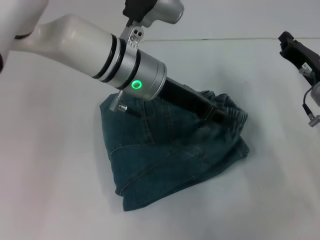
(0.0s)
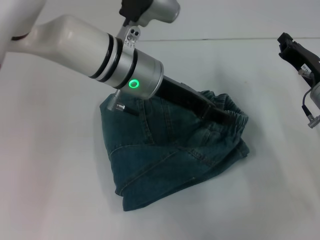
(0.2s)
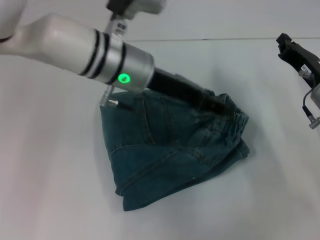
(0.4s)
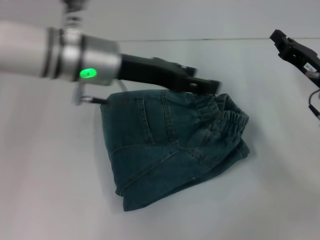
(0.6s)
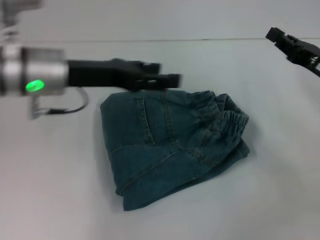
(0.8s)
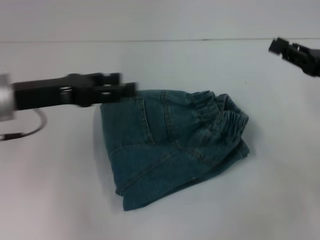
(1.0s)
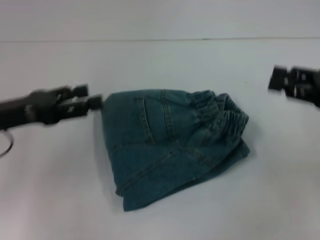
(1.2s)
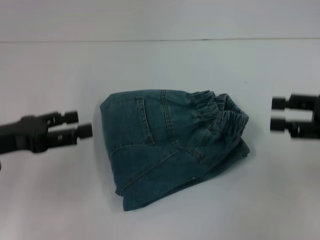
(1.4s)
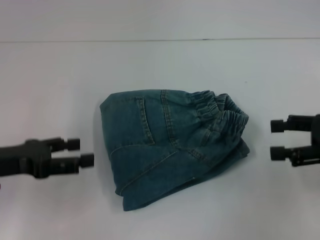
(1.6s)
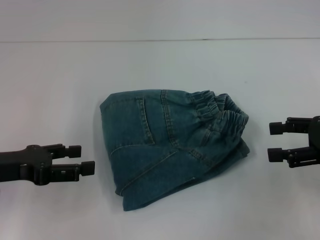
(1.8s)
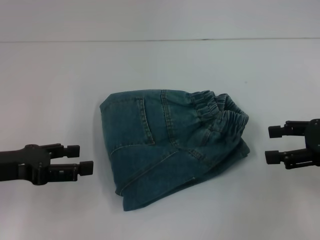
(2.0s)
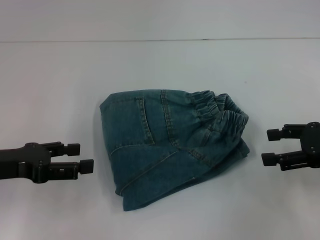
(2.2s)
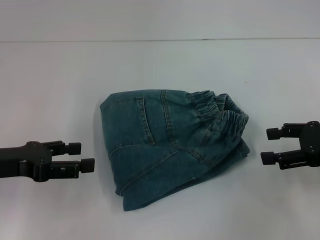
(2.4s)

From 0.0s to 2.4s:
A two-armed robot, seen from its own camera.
From 0.0s to 1.2s: The left gripper is displaced to the left by about 20 cm, and opens. Meanwhile the right gripper is displaced upward, to the right and backward by some 10 cm, and opens up.
From 1.2s to 2.4s: The right gripper opens up.

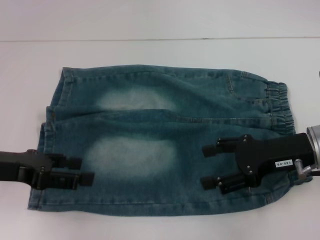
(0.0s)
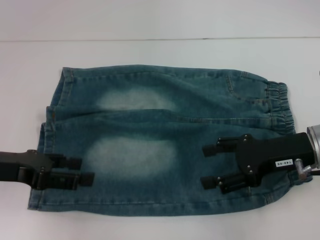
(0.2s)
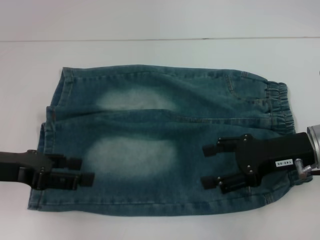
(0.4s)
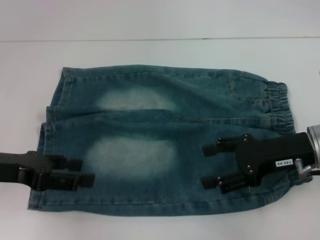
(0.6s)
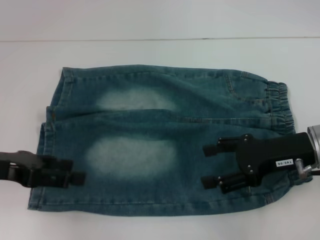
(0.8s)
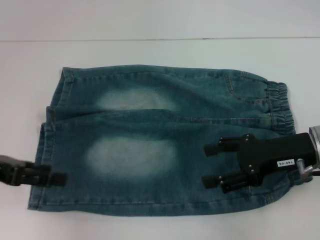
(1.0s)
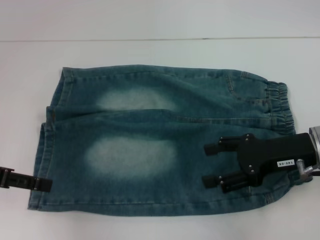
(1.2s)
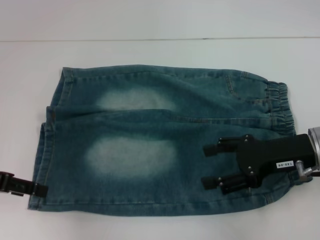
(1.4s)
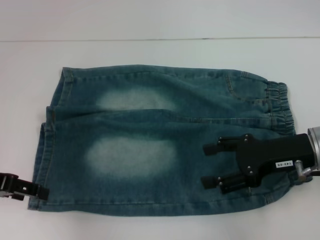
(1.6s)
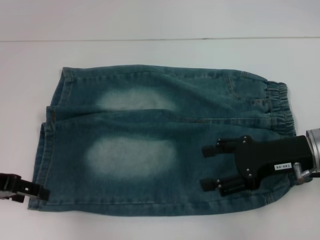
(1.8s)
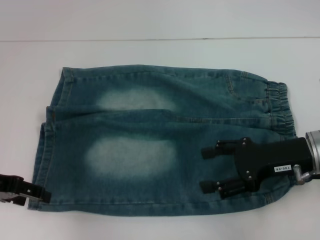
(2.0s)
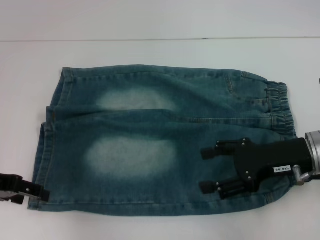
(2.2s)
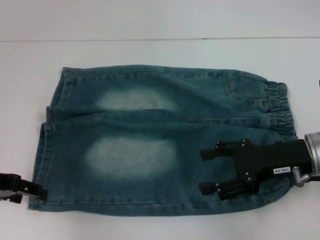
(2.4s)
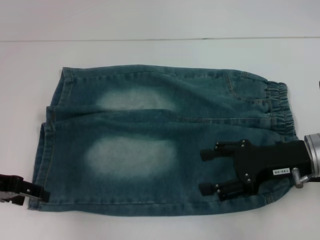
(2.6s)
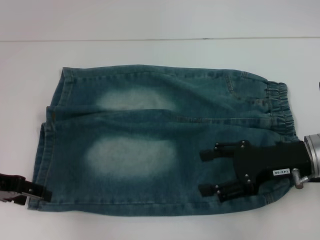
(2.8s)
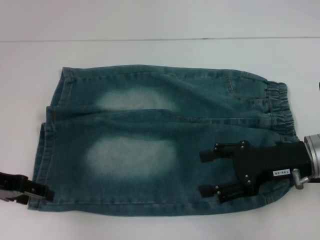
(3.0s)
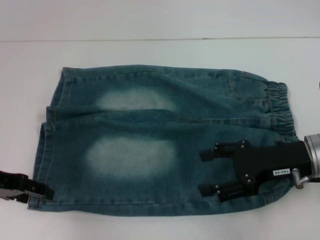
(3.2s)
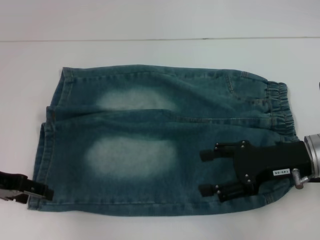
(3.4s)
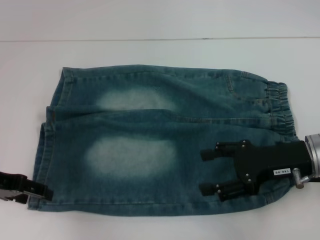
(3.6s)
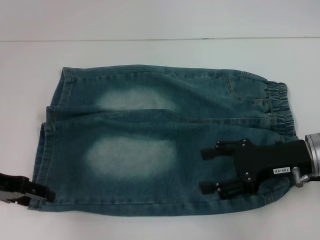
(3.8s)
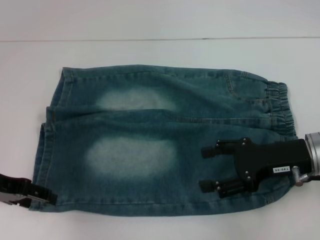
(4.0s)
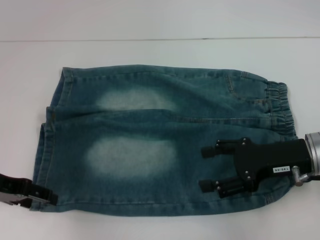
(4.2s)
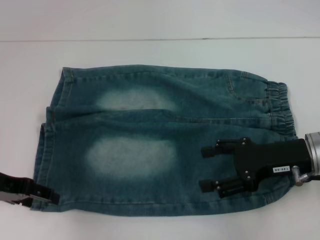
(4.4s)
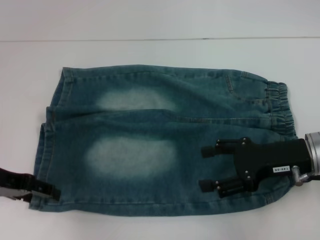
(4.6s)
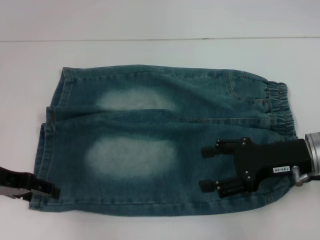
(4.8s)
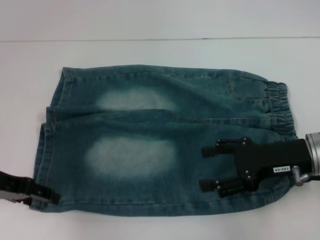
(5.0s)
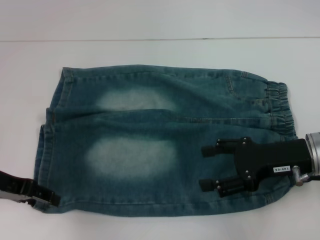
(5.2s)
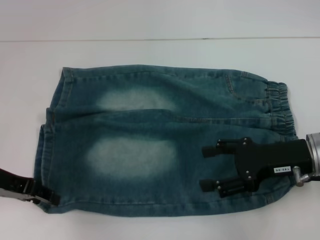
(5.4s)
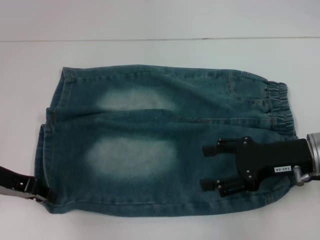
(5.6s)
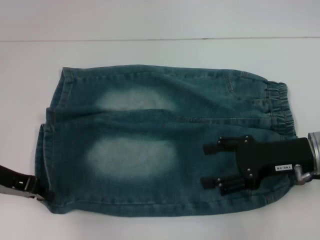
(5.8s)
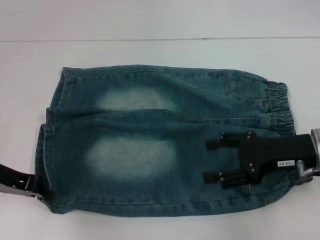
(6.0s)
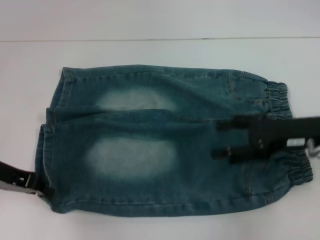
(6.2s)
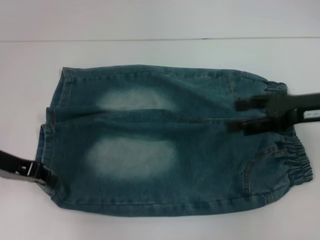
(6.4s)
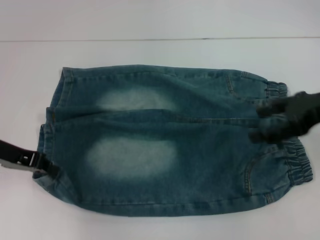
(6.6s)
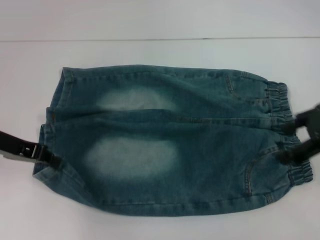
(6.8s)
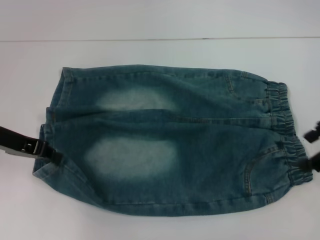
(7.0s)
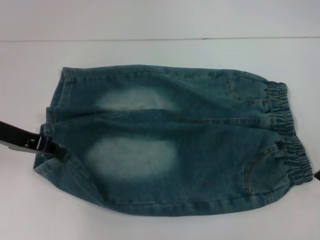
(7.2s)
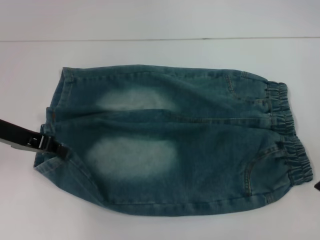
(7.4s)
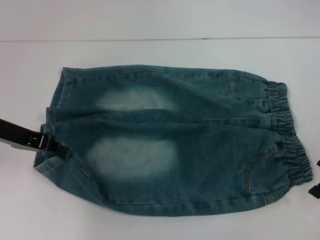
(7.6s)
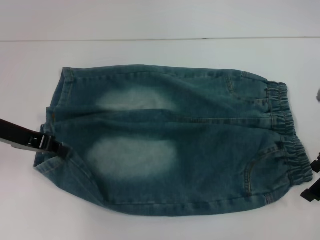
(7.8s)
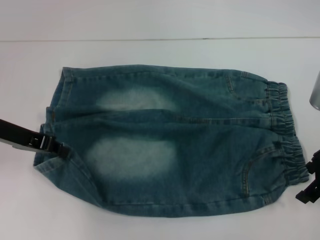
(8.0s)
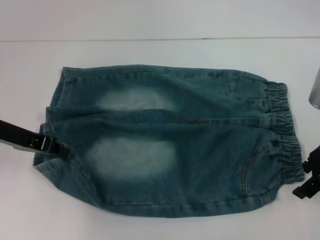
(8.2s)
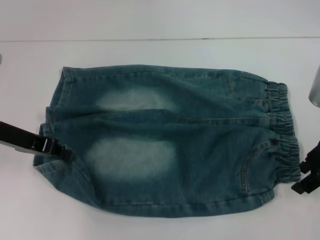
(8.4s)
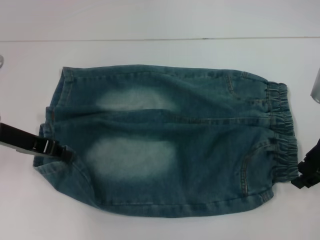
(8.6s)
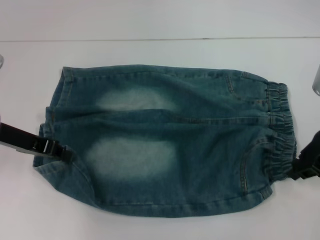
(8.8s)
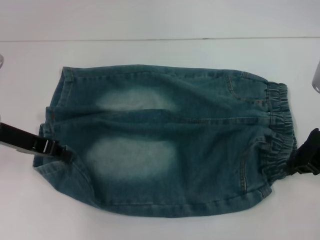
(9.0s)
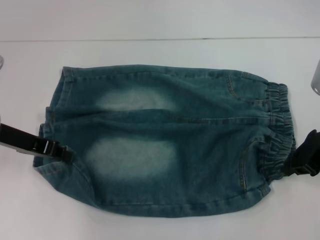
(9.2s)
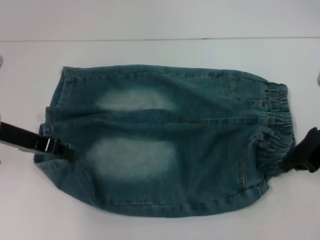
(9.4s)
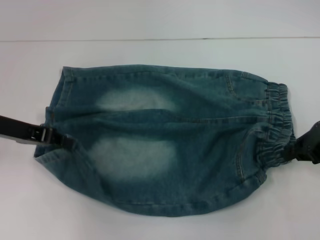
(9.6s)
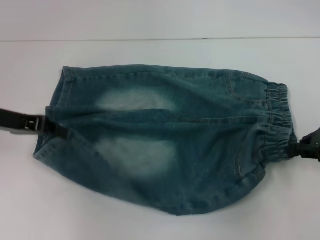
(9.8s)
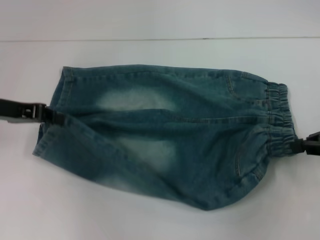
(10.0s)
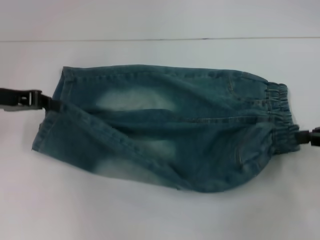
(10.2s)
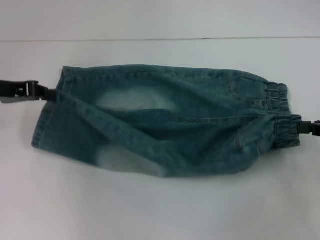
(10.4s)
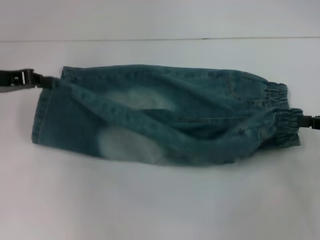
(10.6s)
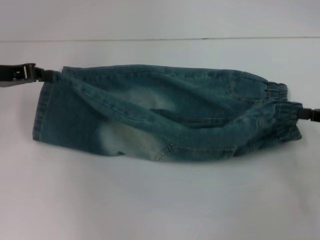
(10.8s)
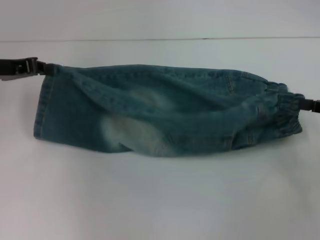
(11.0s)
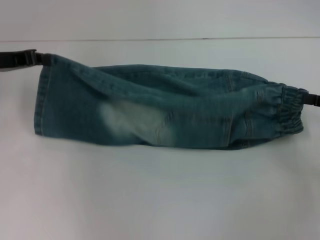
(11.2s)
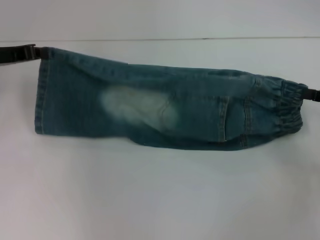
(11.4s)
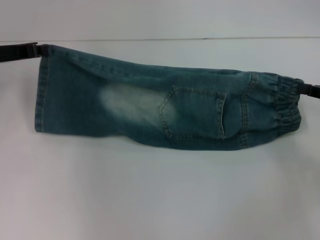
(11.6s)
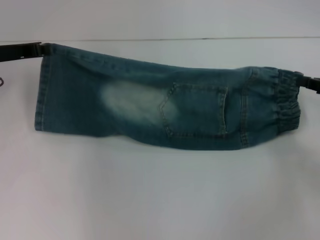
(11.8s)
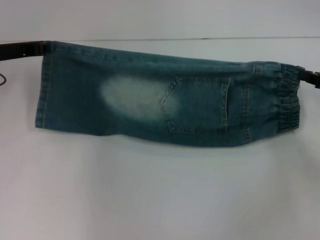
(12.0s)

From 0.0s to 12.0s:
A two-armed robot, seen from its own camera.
Step, from 0.0s to 6.0s: Grab the lower left pant leg with your left hand.
Step, from 6.4s to 9.4s: Hold the lower right waistband with your right hand.
From 1.6s to 3.0s: The grippers stay close to where they were, moving slightly.
From 3.0s to 4.4s: Both grippers stay put.
From 4.4s to 6.0s: The left gripper closes up.
From 6.0s to 7.6s: The right gripper travels upward and to the right by about 10 cm.
From 7.6s to 9.0s: The right gripper closes.
From 9.0s to 10.4s: The right gripper heads to the right, covering some 10 cm.
From 10.4s to 12.0s: Both grippers travel together forward, approximately 5 cm.

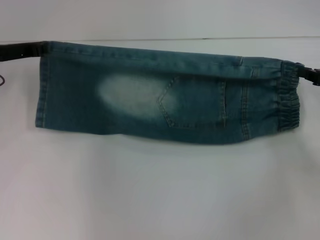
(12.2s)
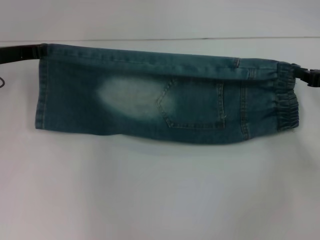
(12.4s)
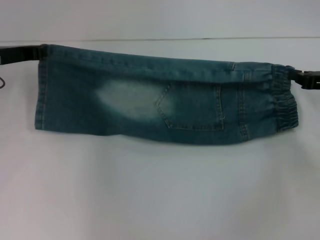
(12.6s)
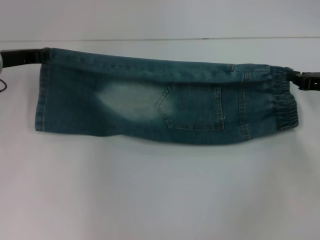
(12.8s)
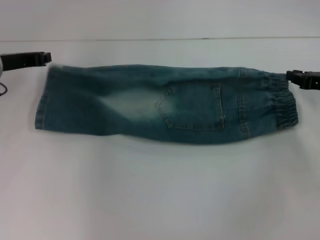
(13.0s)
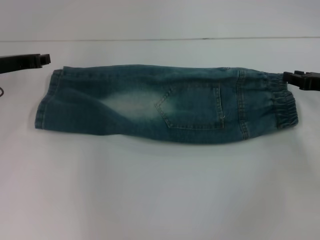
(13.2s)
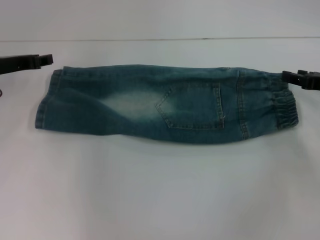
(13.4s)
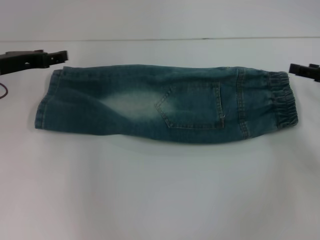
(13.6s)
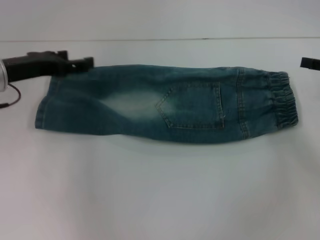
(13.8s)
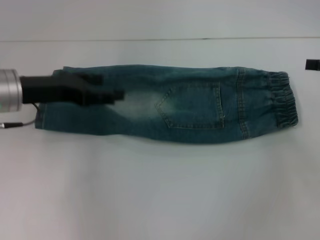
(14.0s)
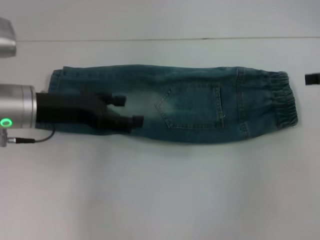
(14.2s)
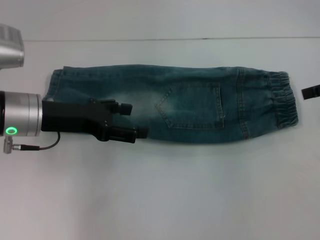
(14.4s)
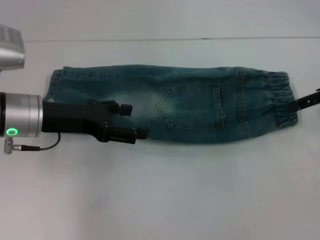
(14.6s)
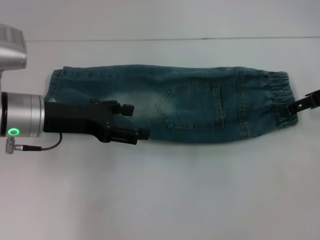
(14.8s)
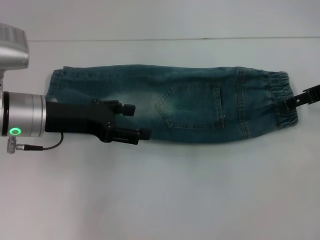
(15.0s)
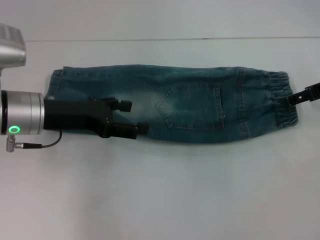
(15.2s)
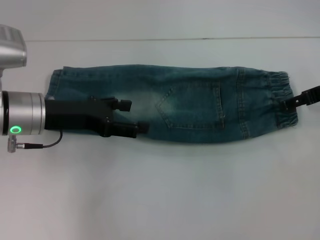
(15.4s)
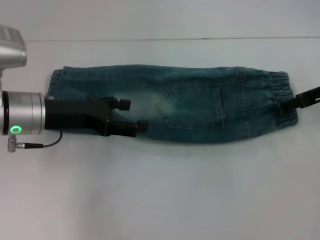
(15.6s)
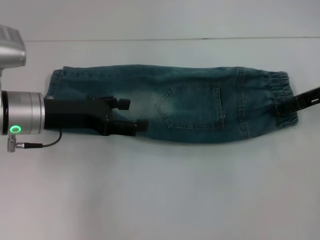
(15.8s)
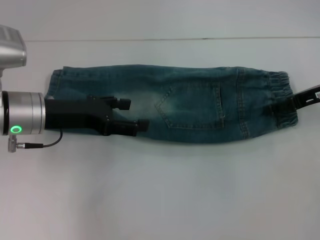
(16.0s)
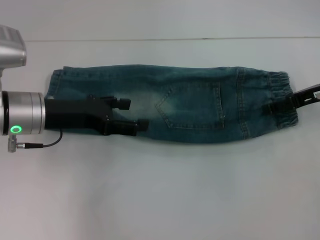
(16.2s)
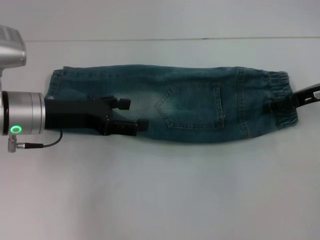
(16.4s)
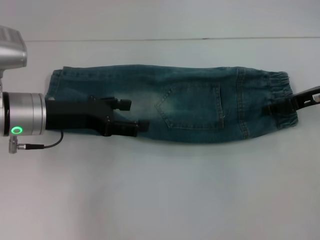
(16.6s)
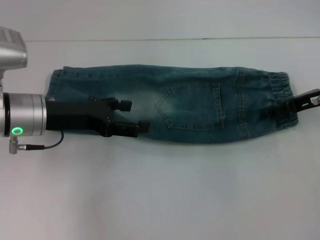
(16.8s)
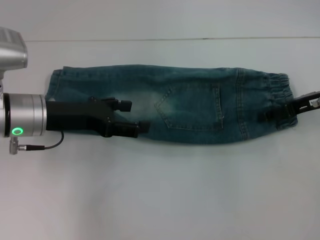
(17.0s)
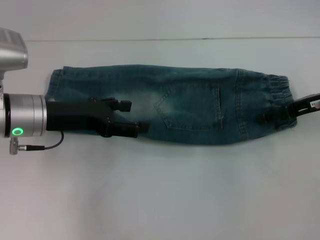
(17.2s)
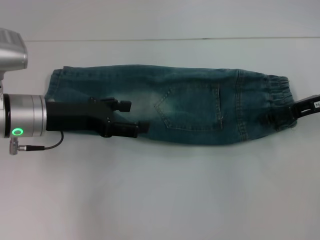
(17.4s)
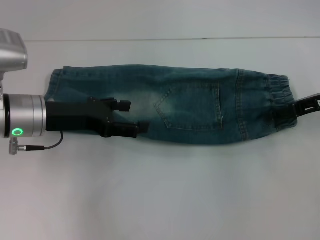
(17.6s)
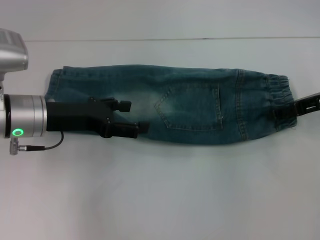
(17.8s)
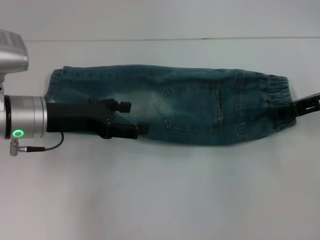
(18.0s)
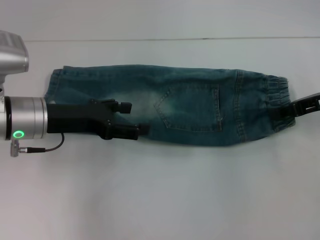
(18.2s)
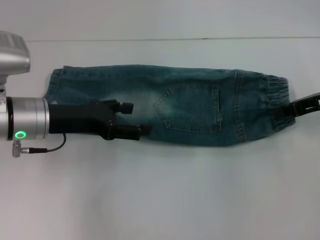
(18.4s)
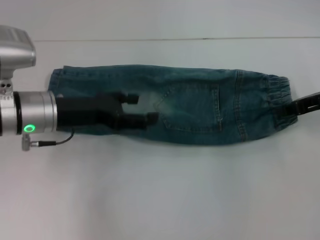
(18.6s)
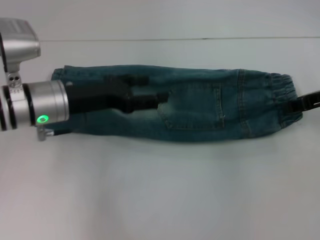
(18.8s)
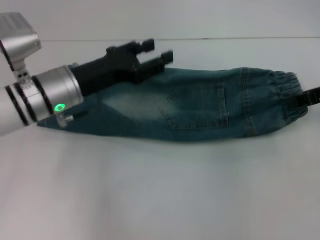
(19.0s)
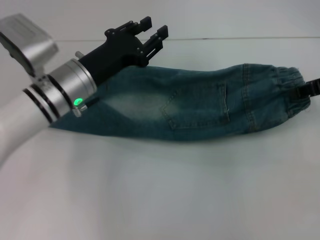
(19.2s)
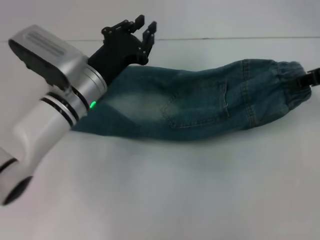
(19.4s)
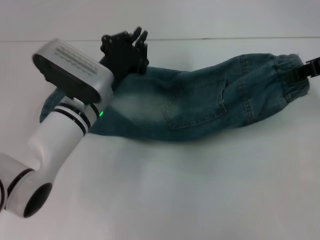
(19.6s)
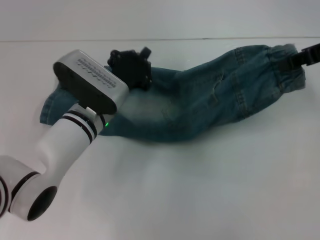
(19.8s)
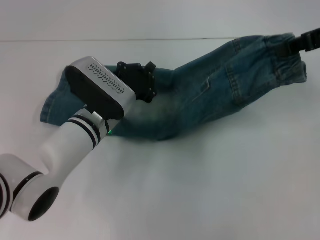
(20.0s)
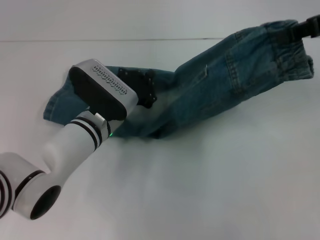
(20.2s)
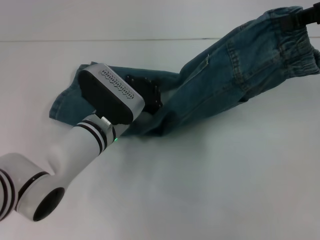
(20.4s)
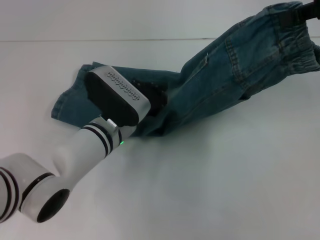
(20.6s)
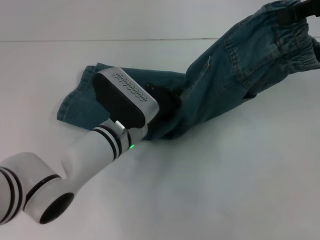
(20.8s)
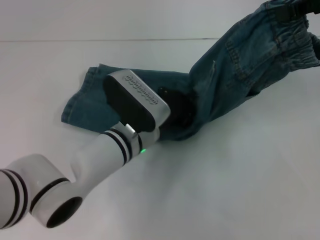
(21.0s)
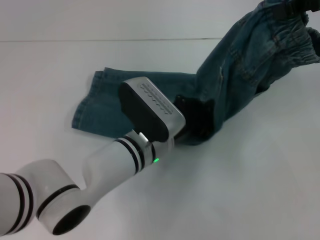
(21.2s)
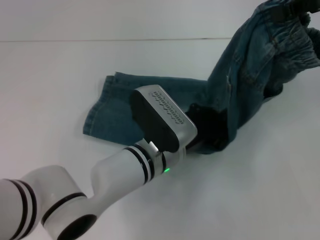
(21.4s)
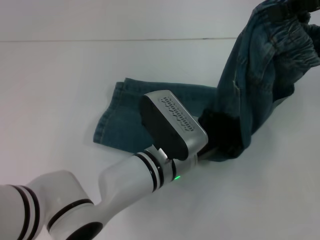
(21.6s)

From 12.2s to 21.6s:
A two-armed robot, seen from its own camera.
Step, from 13.2s to 18.4s: Grab the waistband with your right hand.
From 12.2s to 13.8s: The left gripper opens up; the right gripper opens its fingers.
From 13.8s to 15.4s: The left gripper shifts about 5 cm to the right, while the right gripper travels to the left by approximately 5 cm.
From 15.4s to 17.0s: The grippers make only small movements.
From 17.0s to 18.4s: The right gripper closes.
From 18.4s to 20.0s: The right gripper travels upward by some 15 cm; the left gripper is displaced to the right and downward by approximately 15 cm, and closes.
From 20.0s to 21.6s: The left gripper heads to the right and backward, covering roughly 10 cm; the right gripper heads upward, covering about 5 cm.
